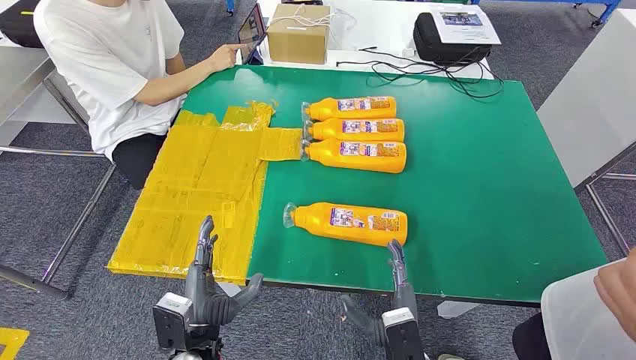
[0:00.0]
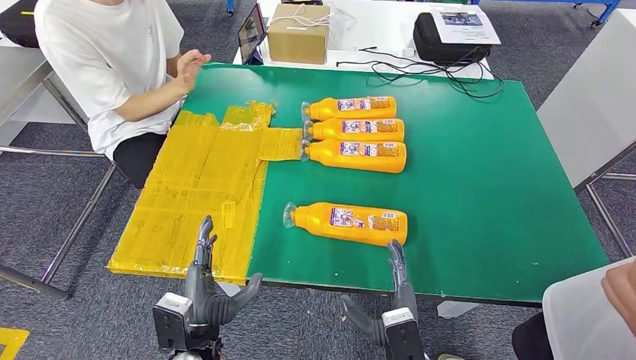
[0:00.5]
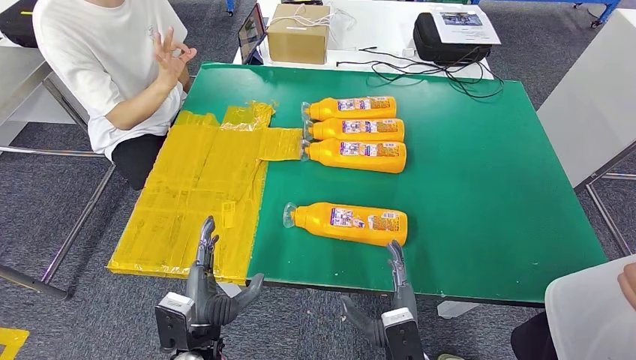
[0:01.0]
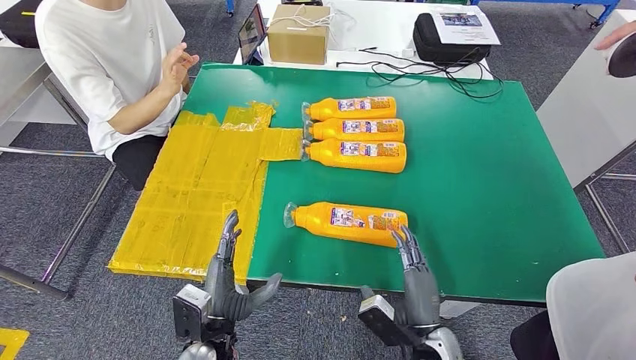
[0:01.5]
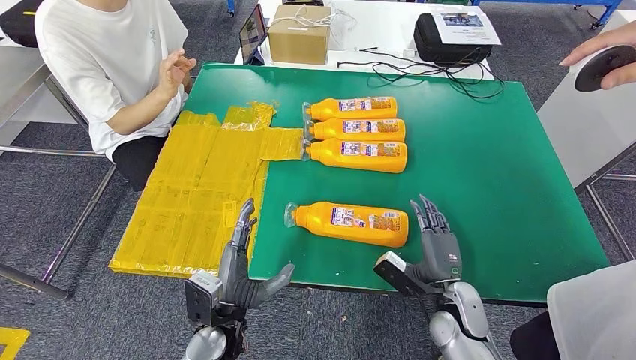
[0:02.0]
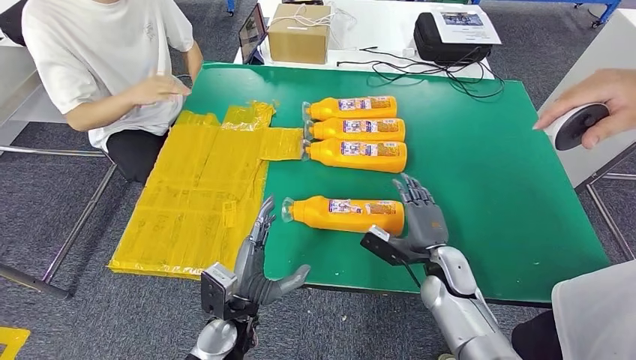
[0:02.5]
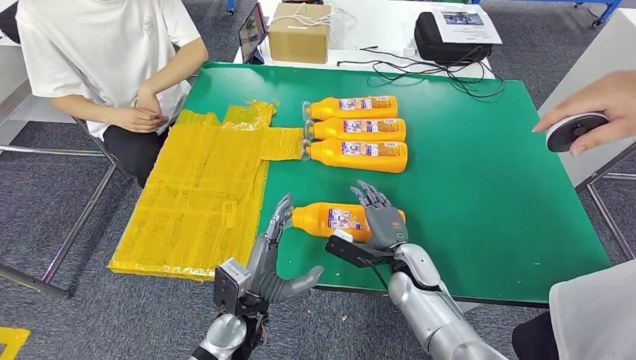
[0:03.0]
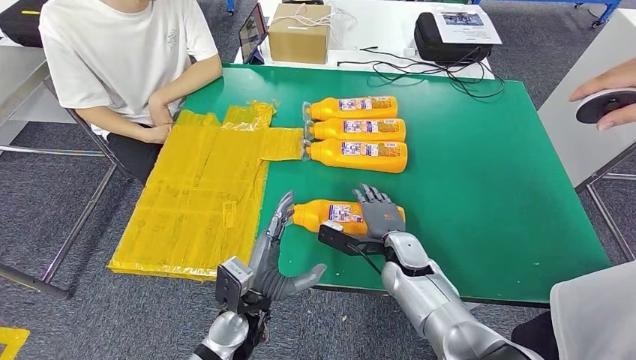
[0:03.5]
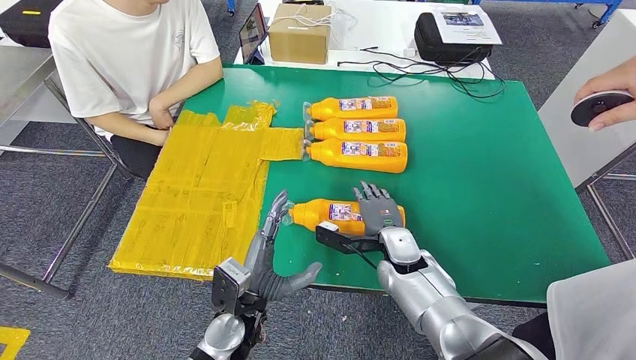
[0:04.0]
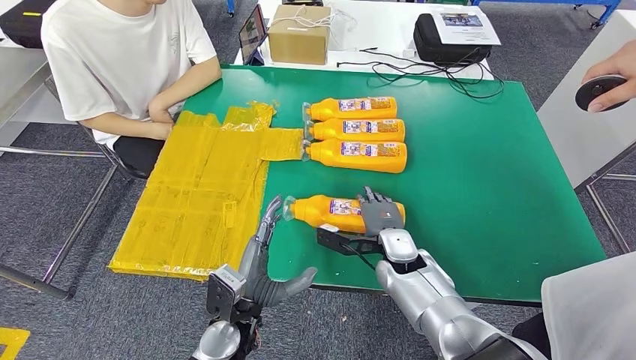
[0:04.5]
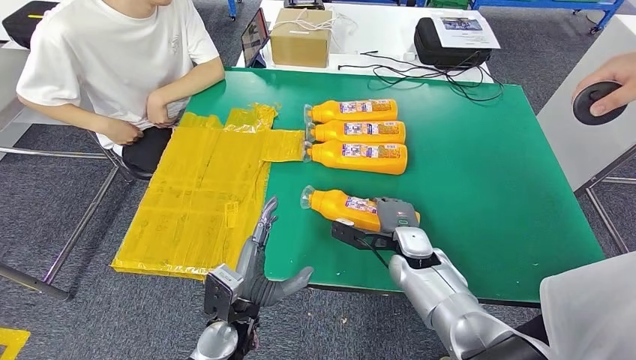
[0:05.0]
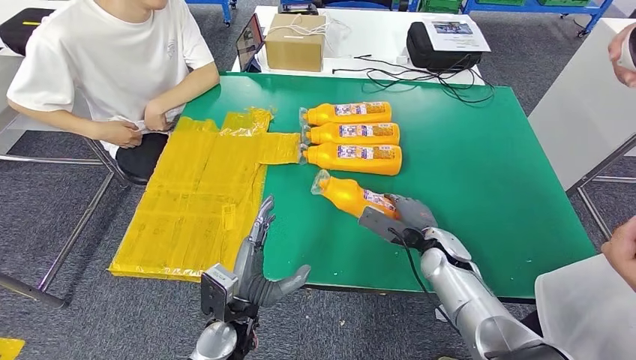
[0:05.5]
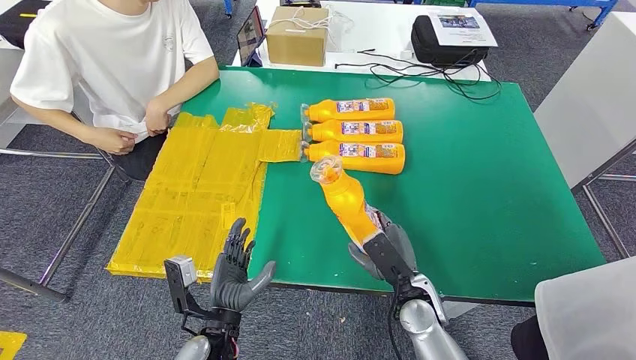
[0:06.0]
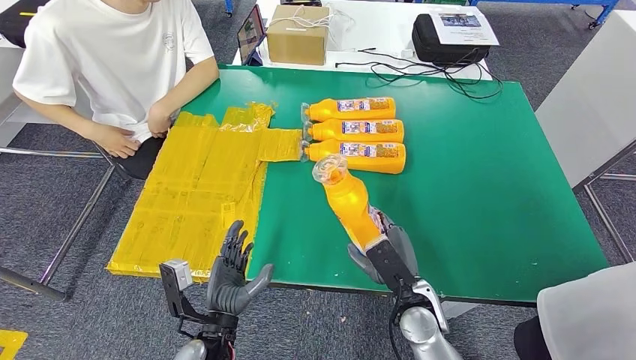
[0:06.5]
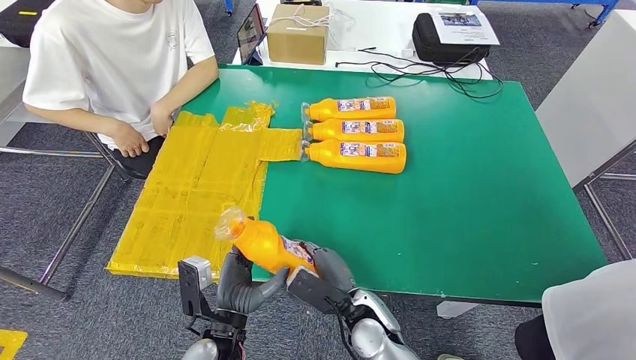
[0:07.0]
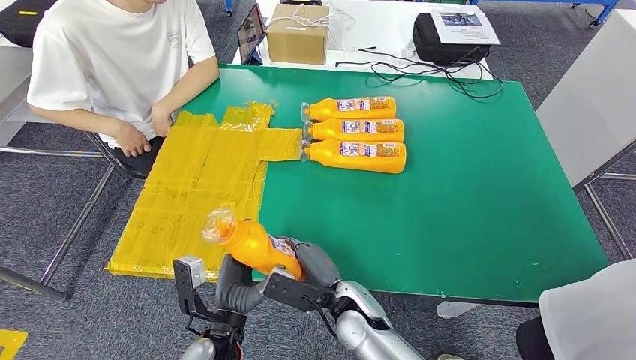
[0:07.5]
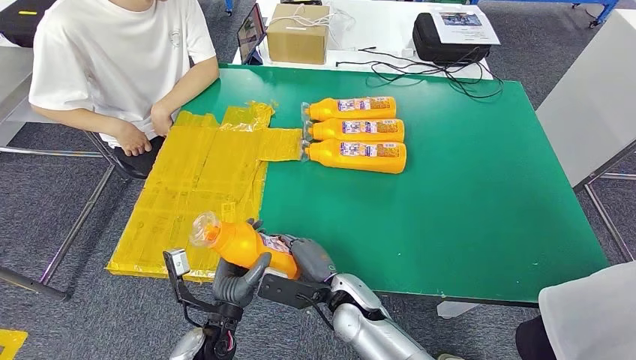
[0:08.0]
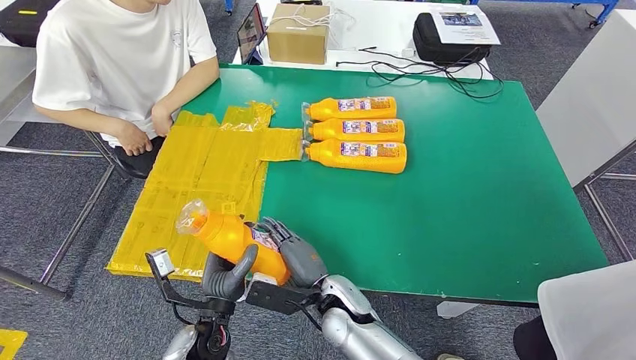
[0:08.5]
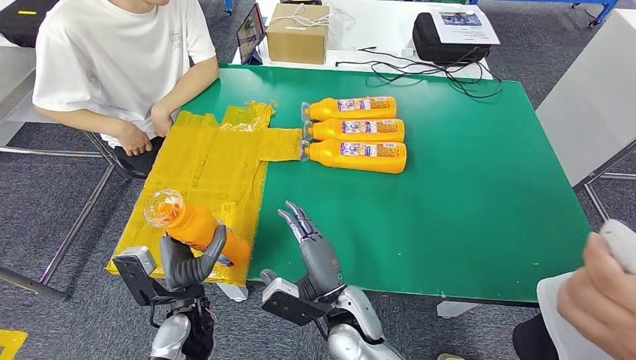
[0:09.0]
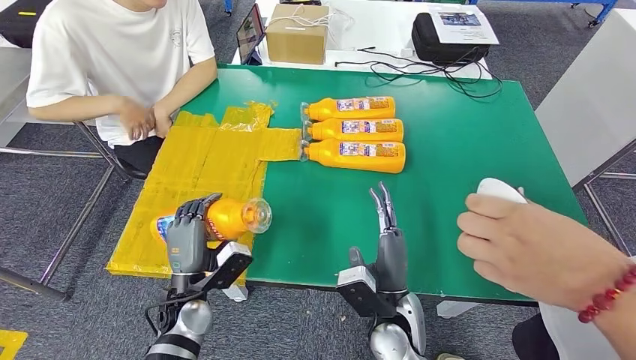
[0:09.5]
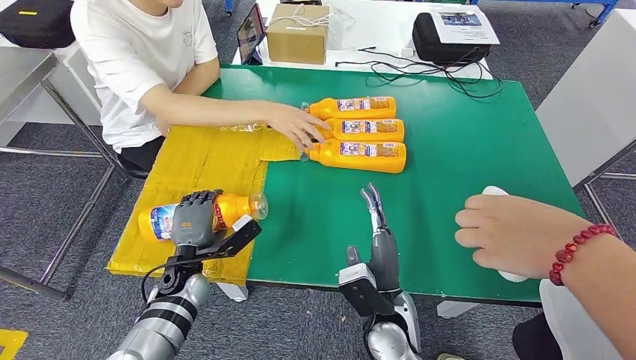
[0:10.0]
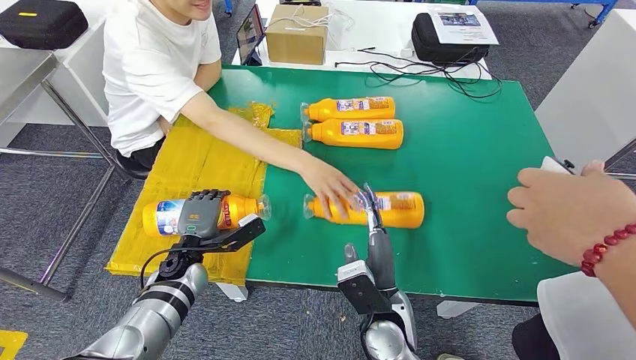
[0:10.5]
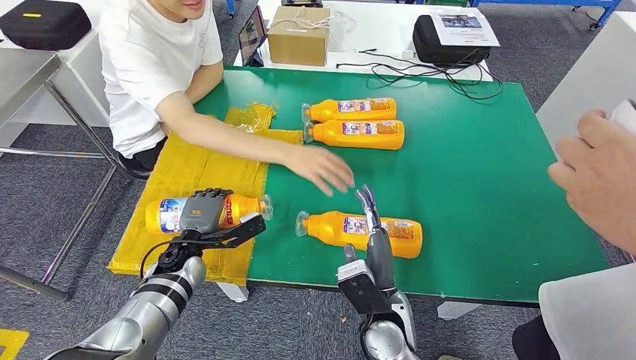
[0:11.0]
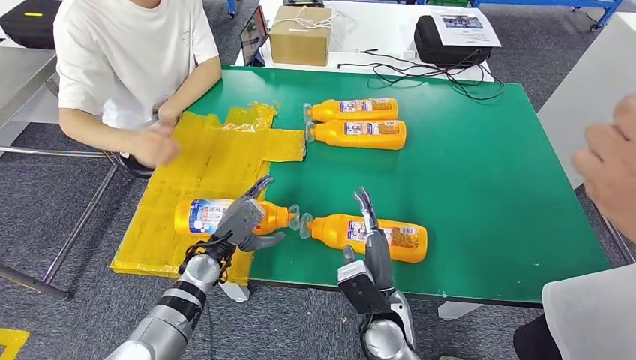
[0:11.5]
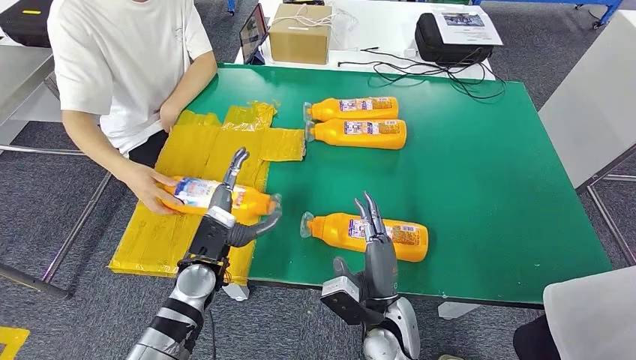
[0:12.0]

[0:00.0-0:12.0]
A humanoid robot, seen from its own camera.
Step, 0:00.0 to 0:06.0: Take the fast-moving consumer goods bottle from the table.
0:02.0 to 0:04.0: The right hand travels to the left and forward by some 15 cm.
0:06.0 to 0:08.0: The right hand goes about 15 cm to the left.

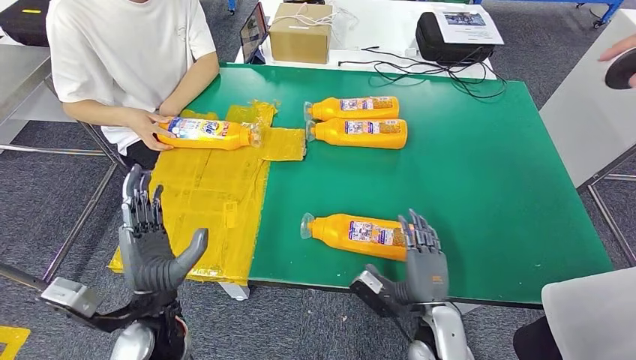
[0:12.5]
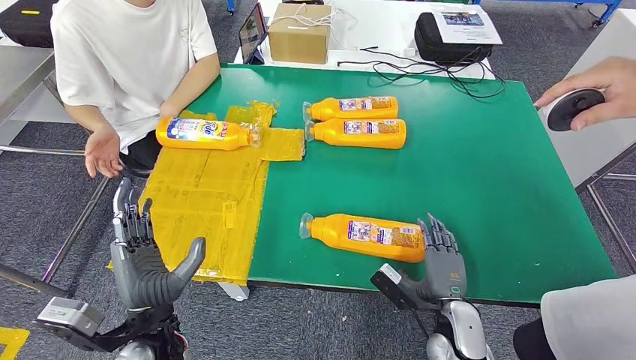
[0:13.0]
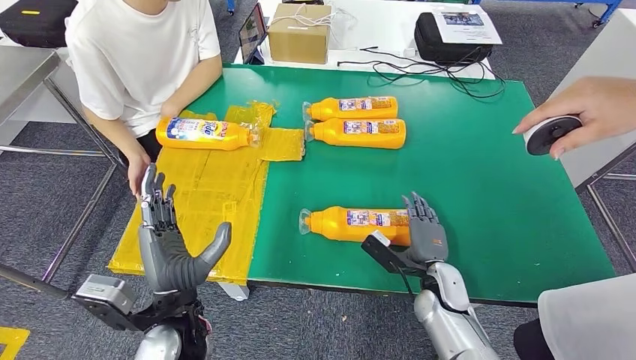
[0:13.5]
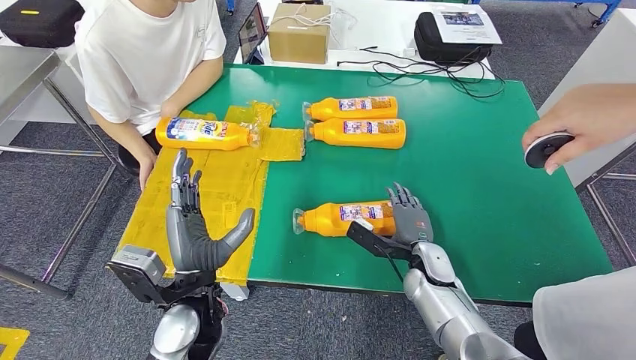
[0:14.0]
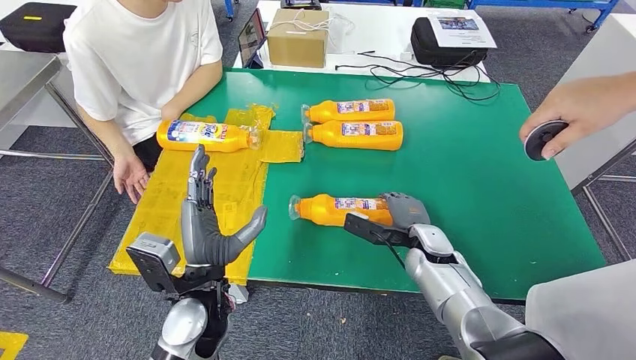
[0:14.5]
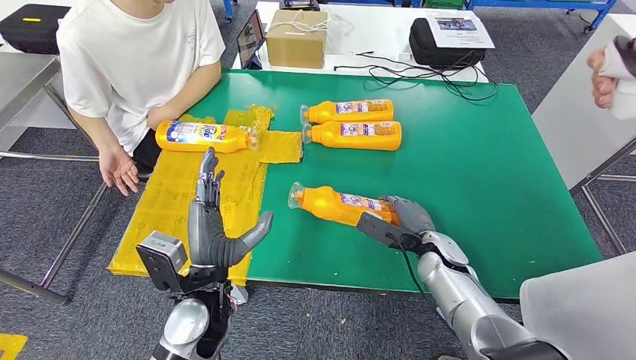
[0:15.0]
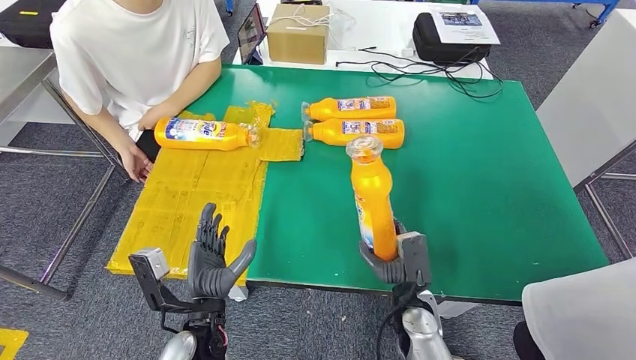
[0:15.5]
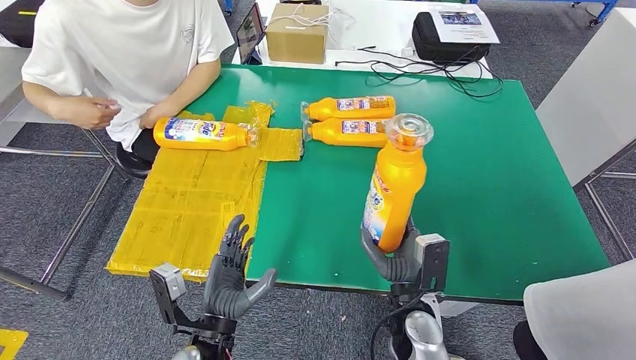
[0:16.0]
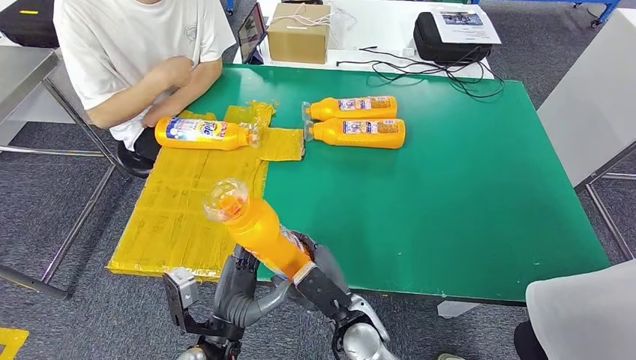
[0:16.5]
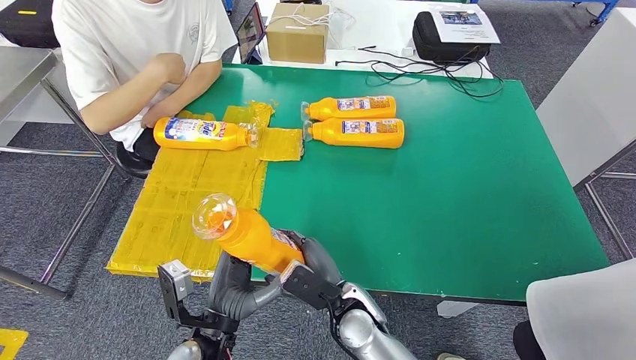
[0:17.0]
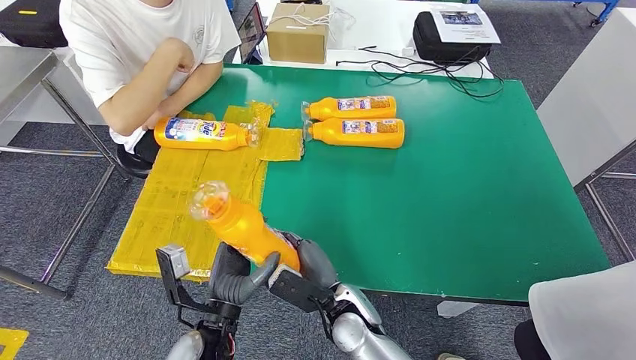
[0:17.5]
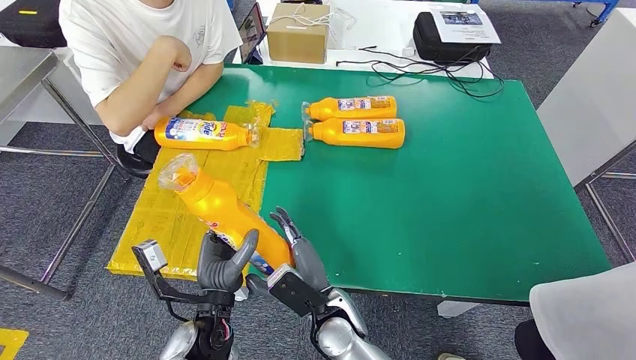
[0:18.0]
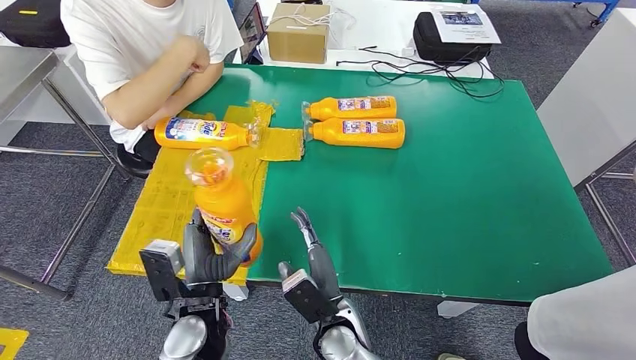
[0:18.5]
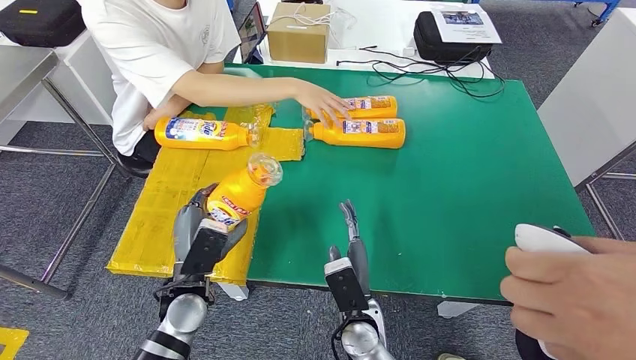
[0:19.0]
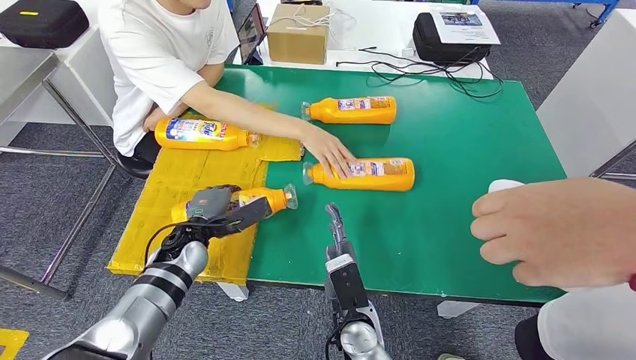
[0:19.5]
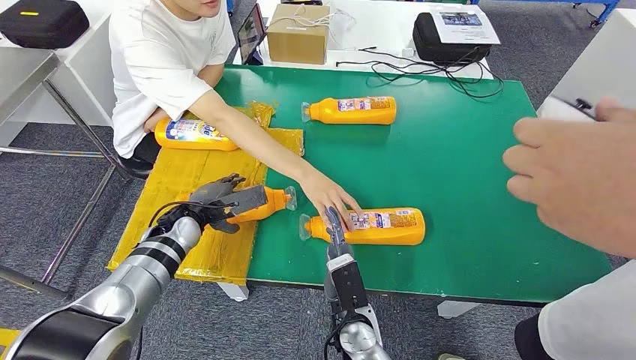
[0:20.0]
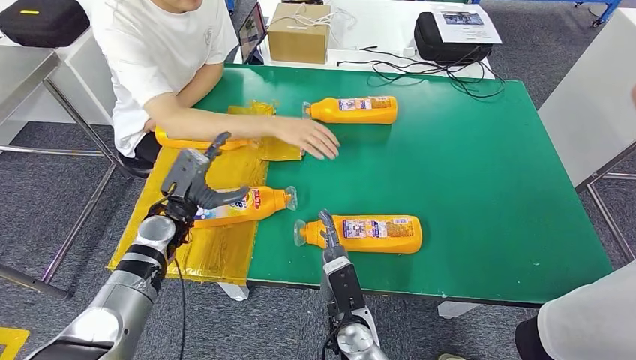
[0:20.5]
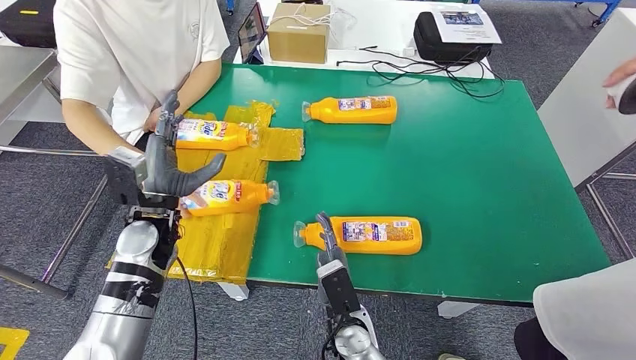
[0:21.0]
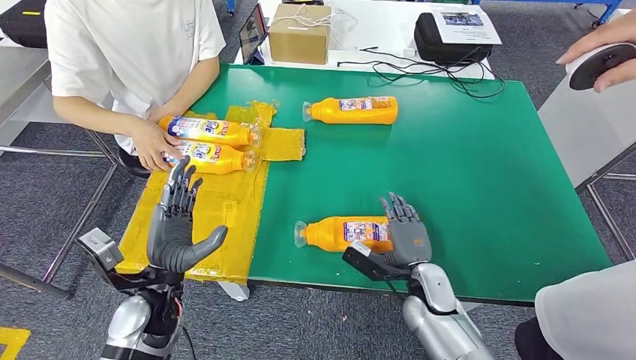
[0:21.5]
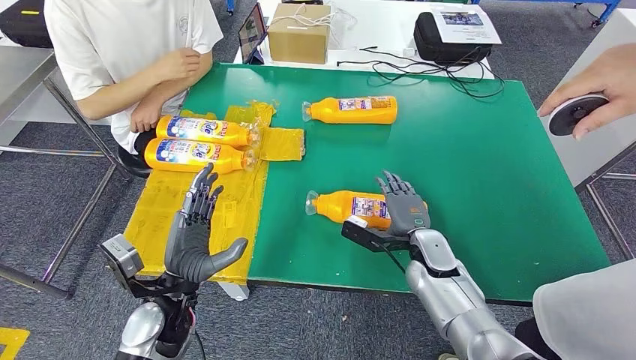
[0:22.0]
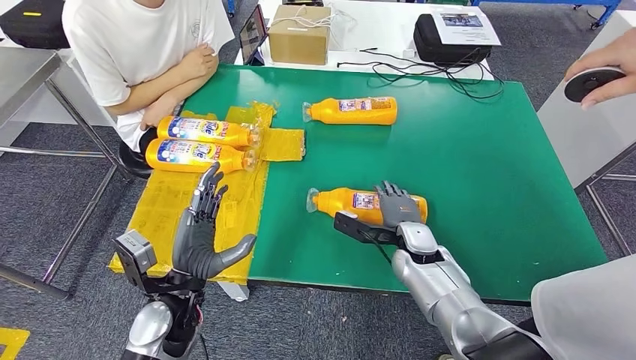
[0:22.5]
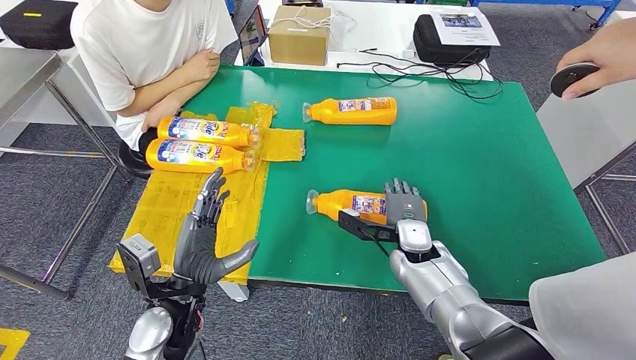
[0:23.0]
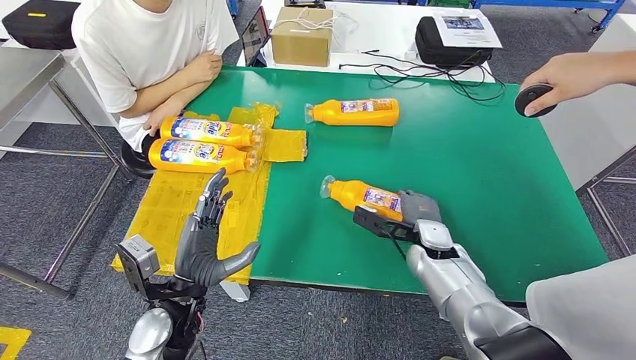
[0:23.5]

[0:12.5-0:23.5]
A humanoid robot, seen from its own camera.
Step, 0:13.0 to 0:16.0: Pick up the fast-moving consumer goods bottle from the table.
Step, 0:16.5 to 0:22.0: Flip the fast-moving consumer goods bottle to the front side.
